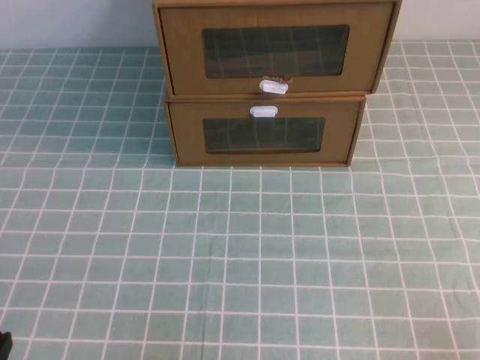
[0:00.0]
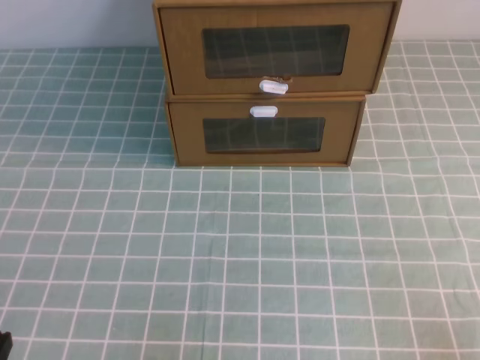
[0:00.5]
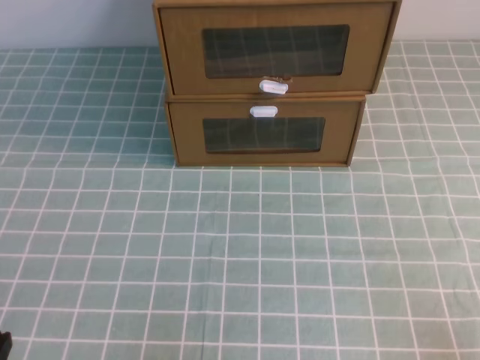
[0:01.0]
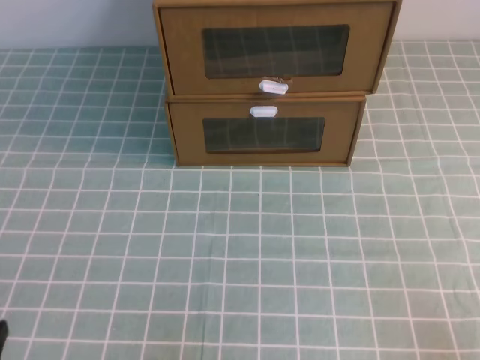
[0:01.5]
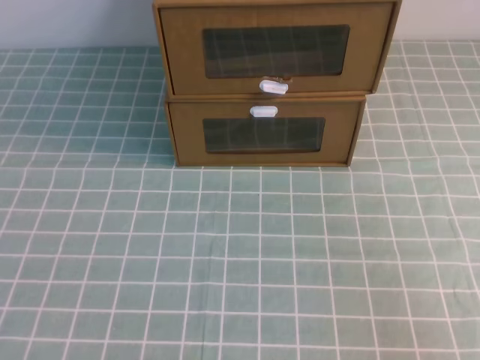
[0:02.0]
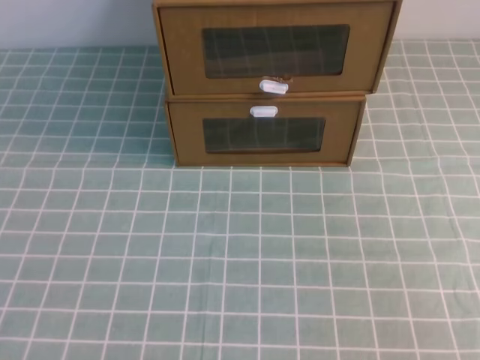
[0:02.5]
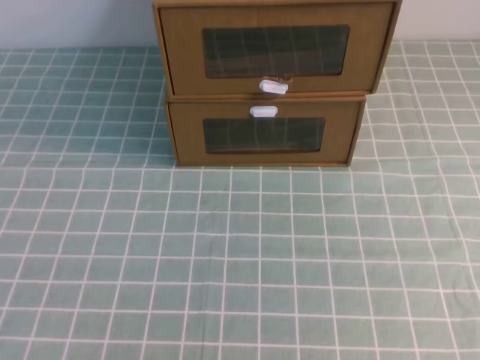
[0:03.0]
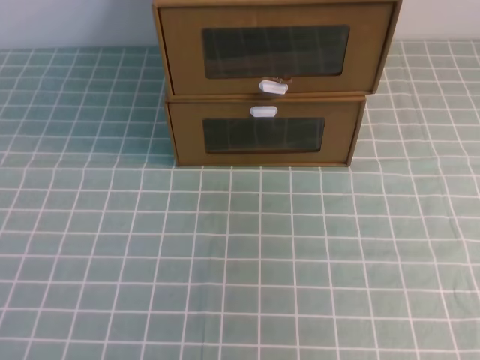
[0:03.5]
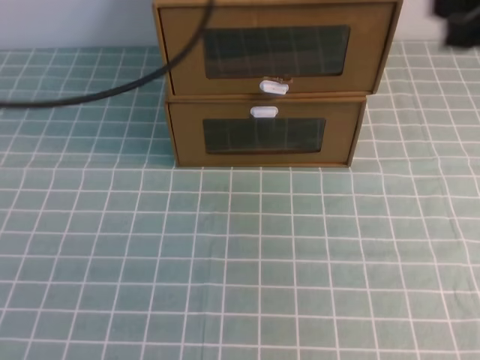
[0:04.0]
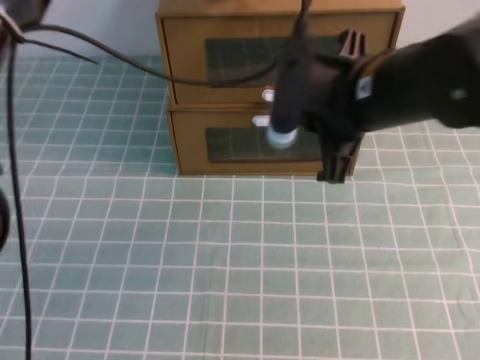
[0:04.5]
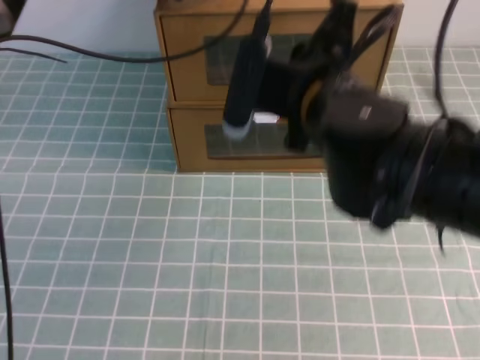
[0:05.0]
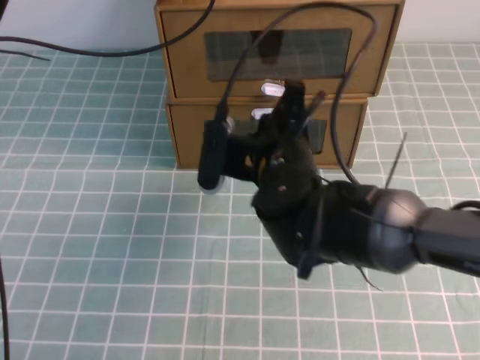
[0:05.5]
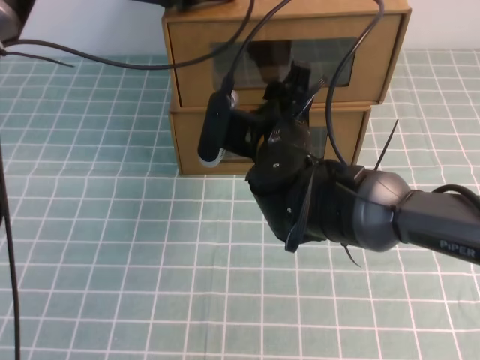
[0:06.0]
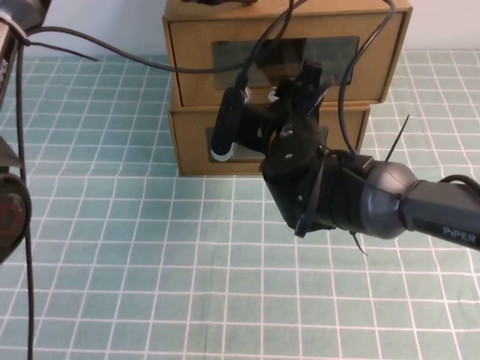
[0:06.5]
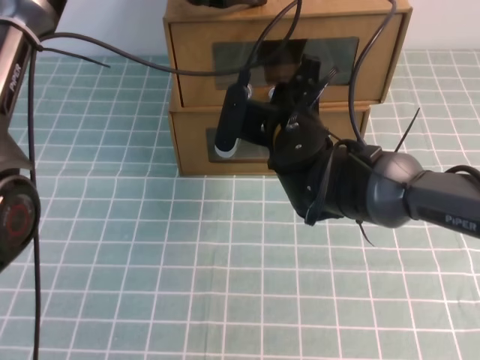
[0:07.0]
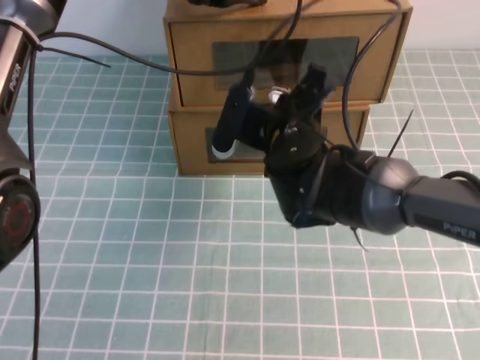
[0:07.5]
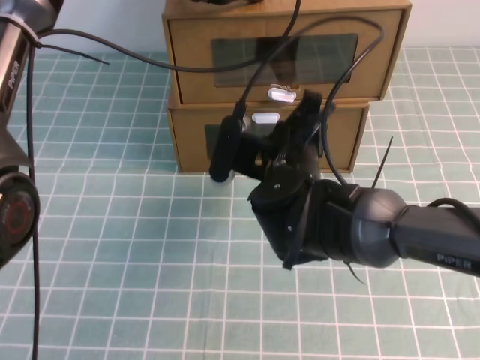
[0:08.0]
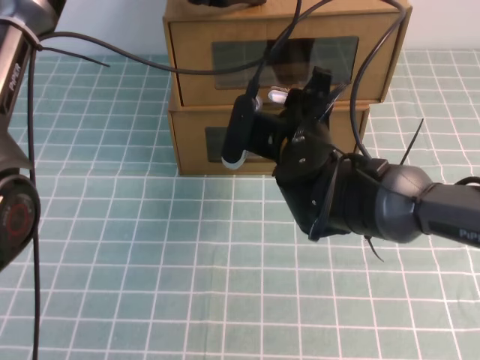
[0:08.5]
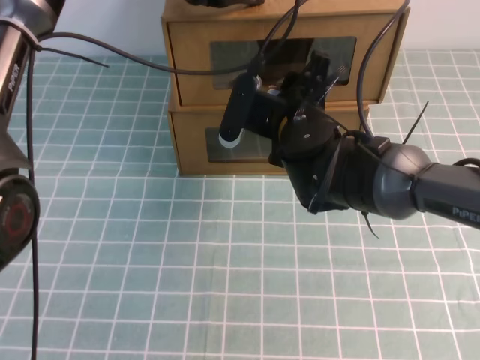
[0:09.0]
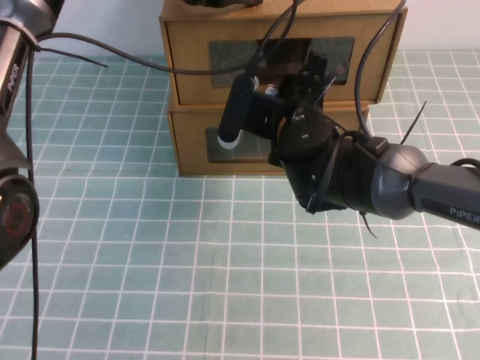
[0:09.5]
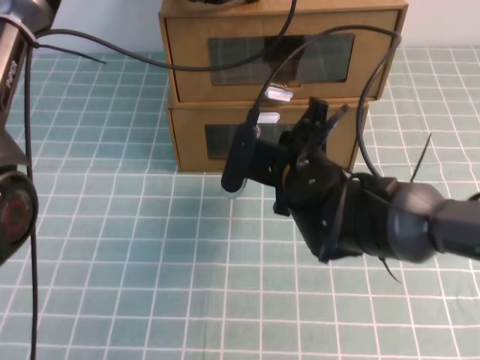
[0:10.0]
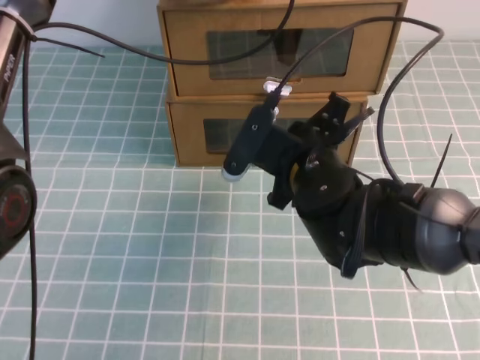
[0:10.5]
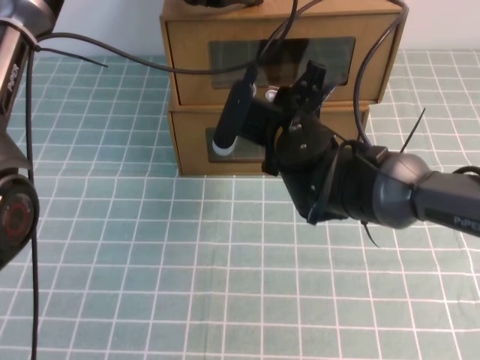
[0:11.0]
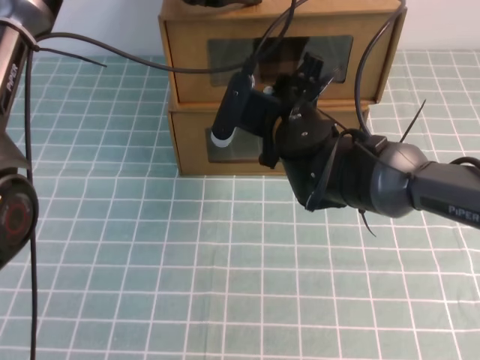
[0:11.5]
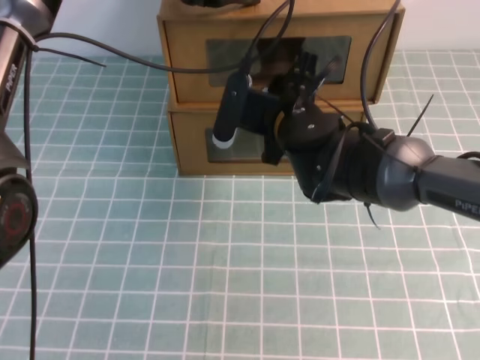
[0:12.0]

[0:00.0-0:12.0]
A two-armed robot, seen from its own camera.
Task of the whole recording: open the shoebox on the cyan tablecloth.
2.0 to 4.0 s: The two grippers go about 30 cm forward and upward.
4.0 to 6.0 s: The right gripper shifts approximately 25 cm to the left and downward, and opens up. The left gripper moves forward and downward, some 20 cm.
6.0 to 8.0 s: The right gripper closes up.
8.0 to 10.0 s: The right gripper opens and closes again.
10.0 to 12.0 s: The right gripper moves about 5 cm, and opens.

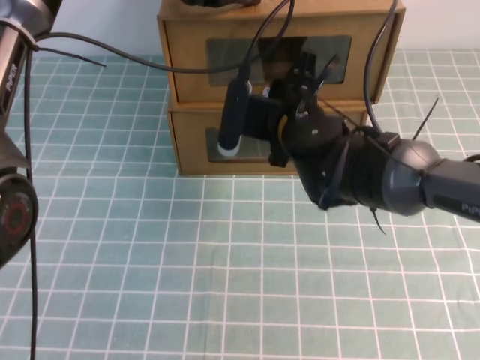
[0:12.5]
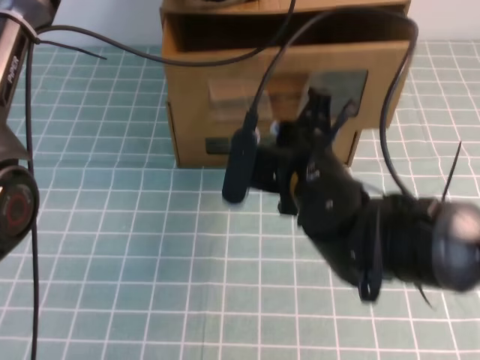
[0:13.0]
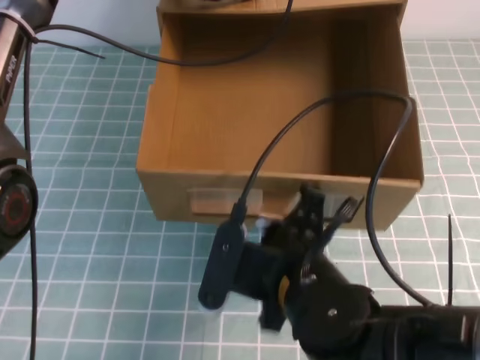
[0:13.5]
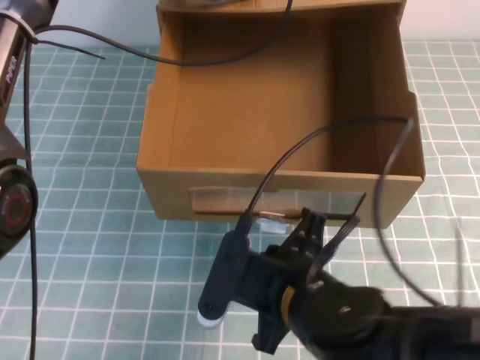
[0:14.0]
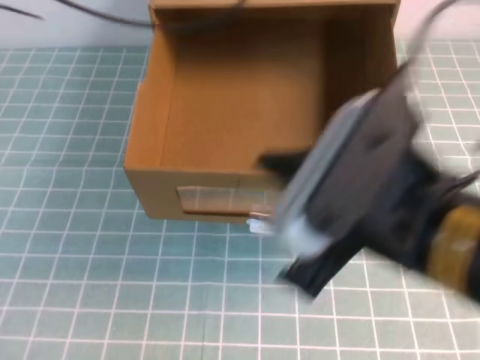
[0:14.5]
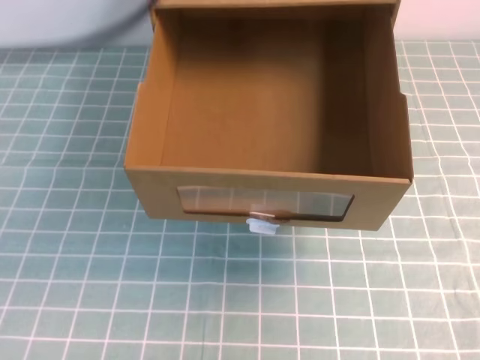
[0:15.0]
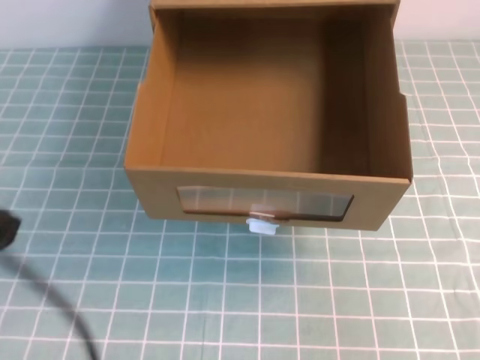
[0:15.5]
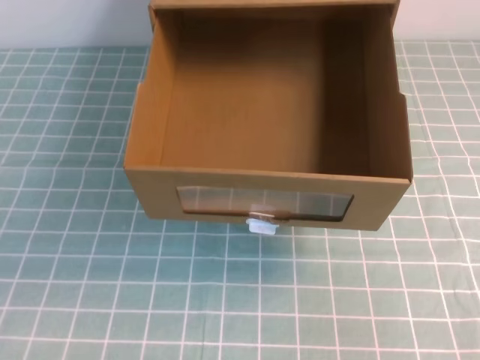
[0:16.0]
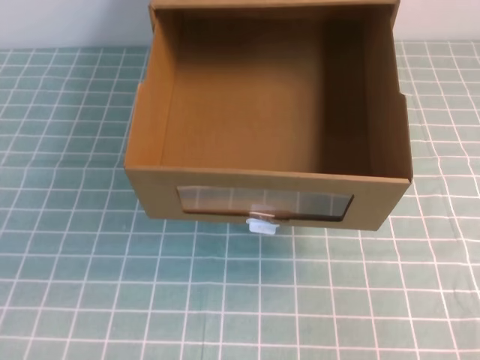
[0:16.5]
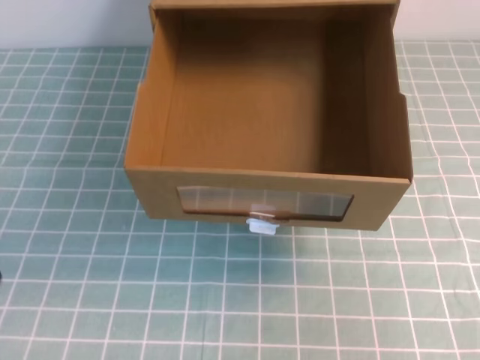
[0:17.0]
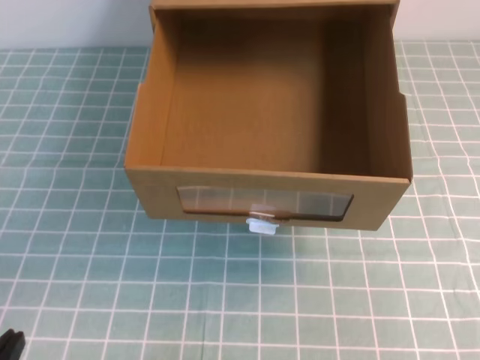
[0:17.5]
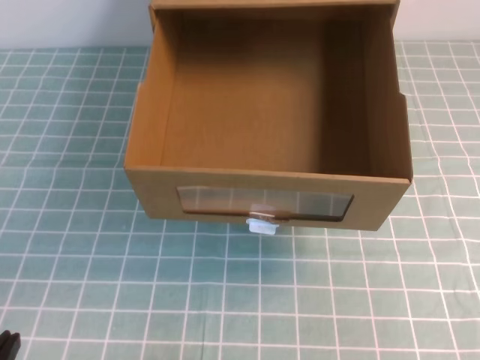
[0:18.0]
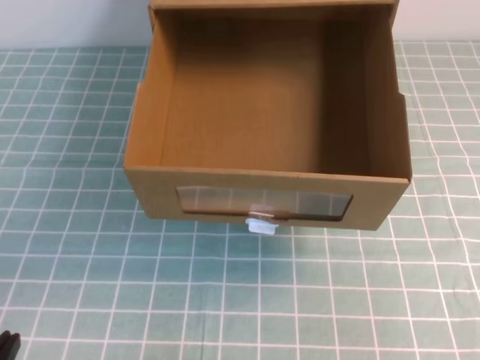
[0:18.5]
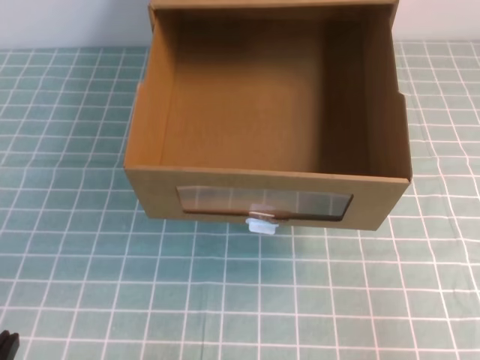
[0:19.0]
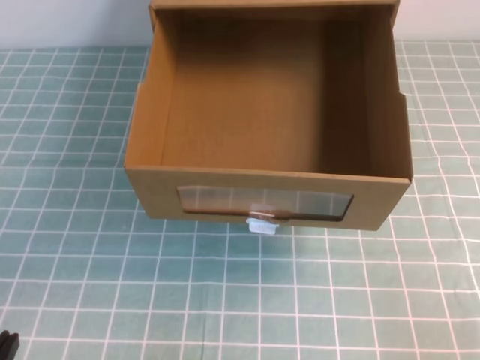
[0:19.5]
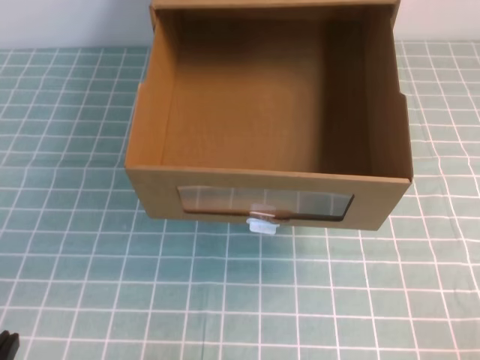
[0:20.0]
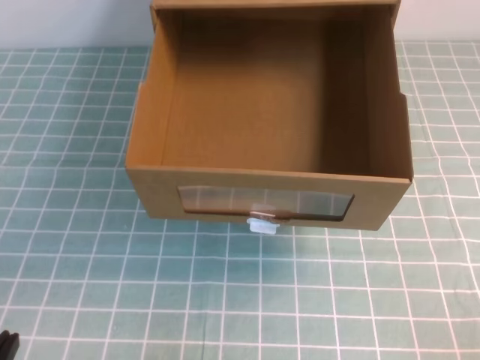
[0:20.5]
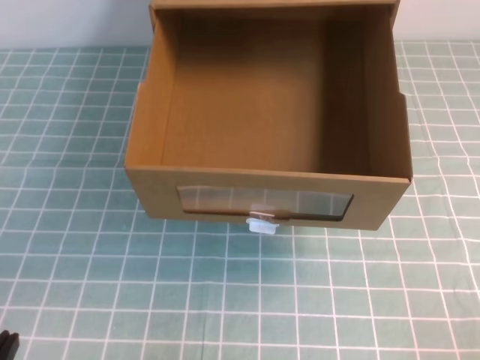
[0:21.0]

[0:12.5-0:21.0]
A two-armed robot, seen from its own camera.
Task of the whole recording: open the shoebox on the cyan tablecloth.
Step, 12.5 to 21.0 s: Open the shoe box.
12.5 to 14.5 s: The right gripper heads backward and upward, covering roughly 25 cm. The left gripper heads upward and backward, covering roughly 10 cm.
14.5 to 16.5 s: The right gripper travels to the right by some 20 cm. The left gripper heads backward, covering some 35 cm.
19.0 to 21.0 s: The right gripper shifts about 15 cm downward.

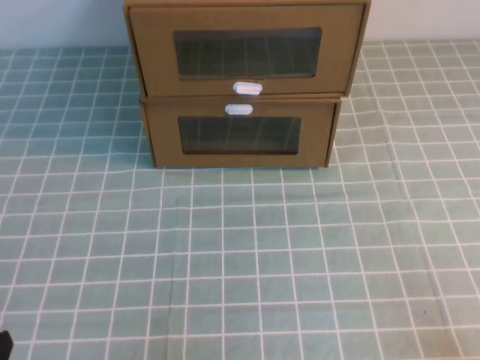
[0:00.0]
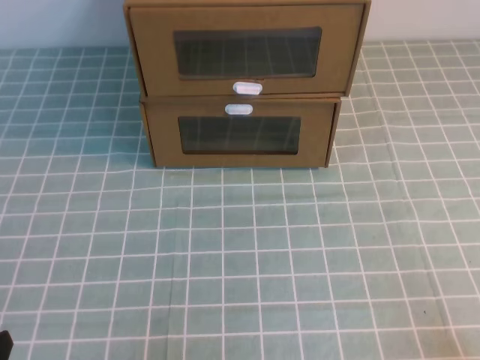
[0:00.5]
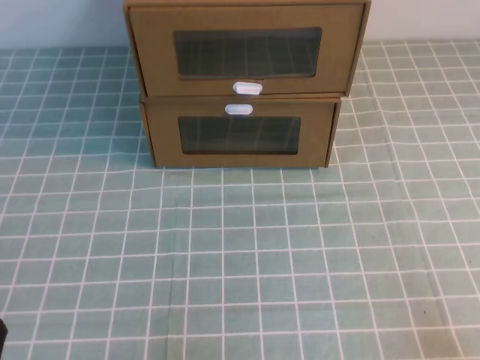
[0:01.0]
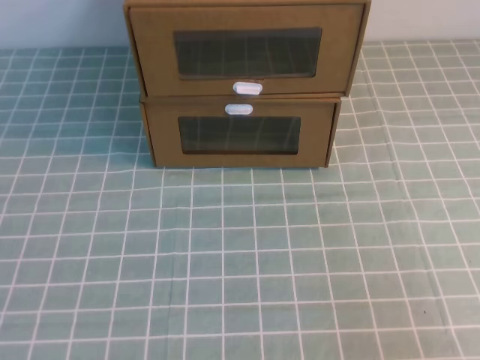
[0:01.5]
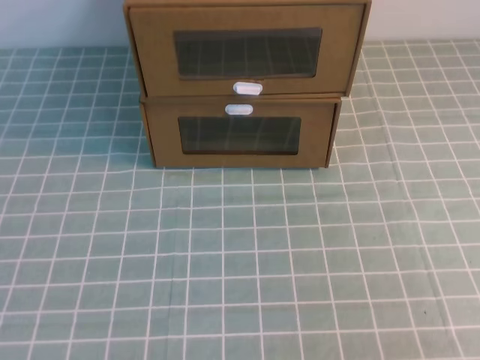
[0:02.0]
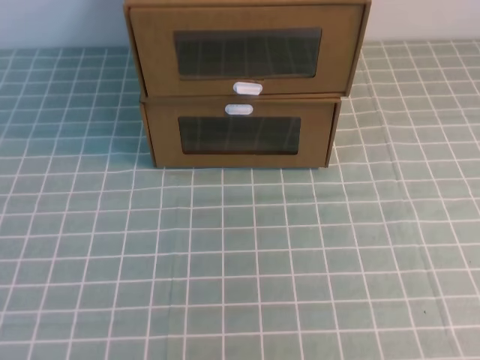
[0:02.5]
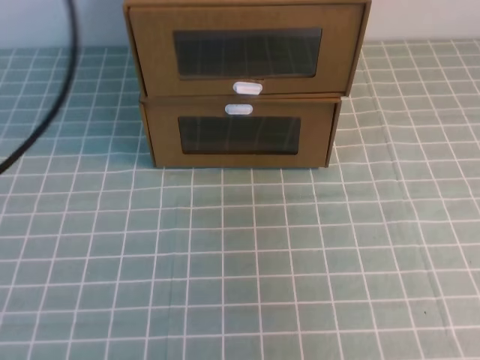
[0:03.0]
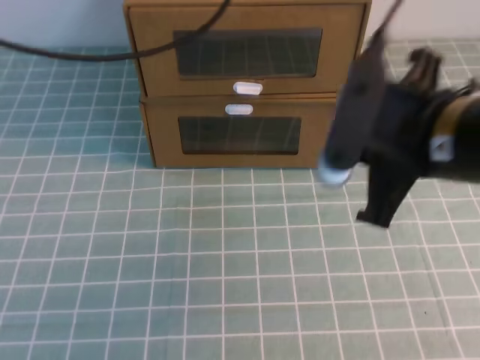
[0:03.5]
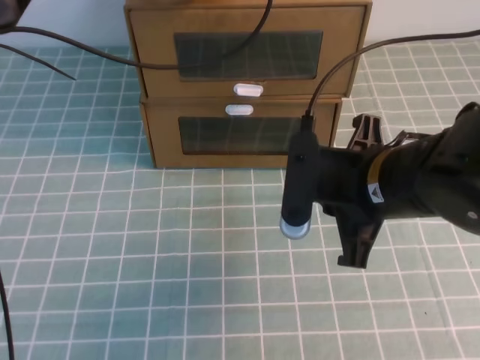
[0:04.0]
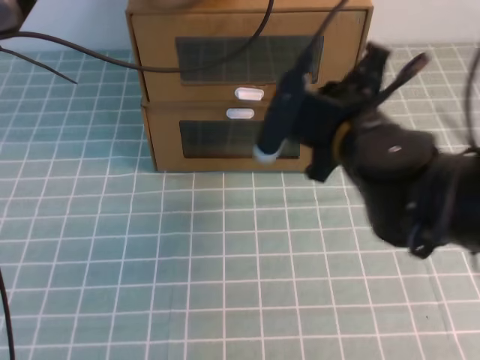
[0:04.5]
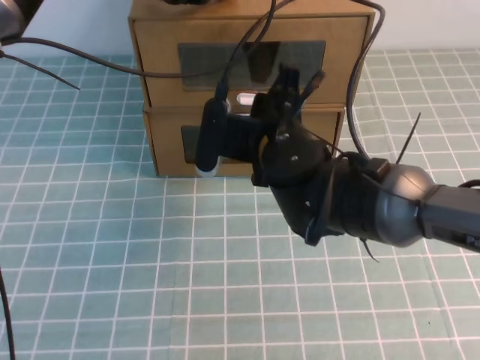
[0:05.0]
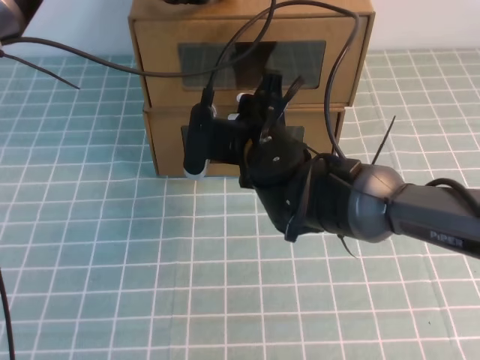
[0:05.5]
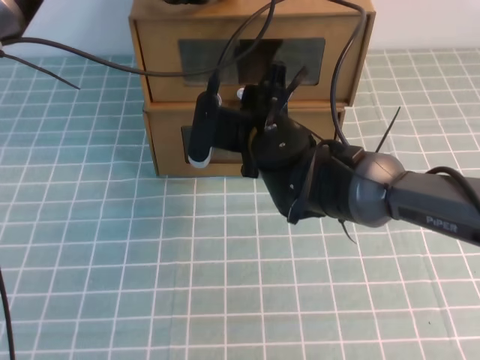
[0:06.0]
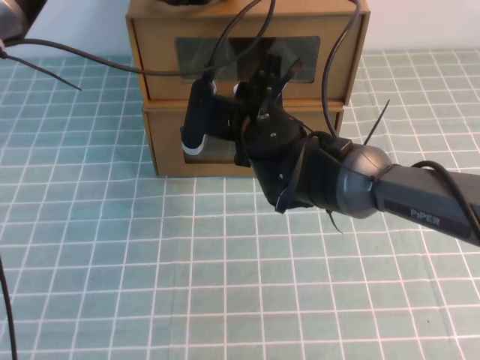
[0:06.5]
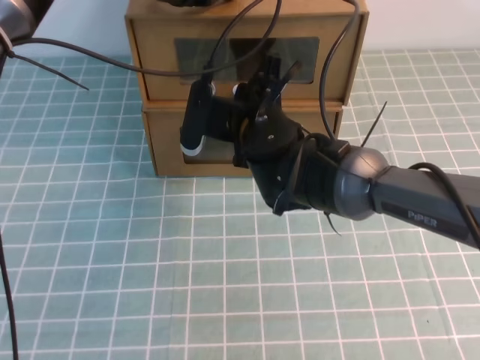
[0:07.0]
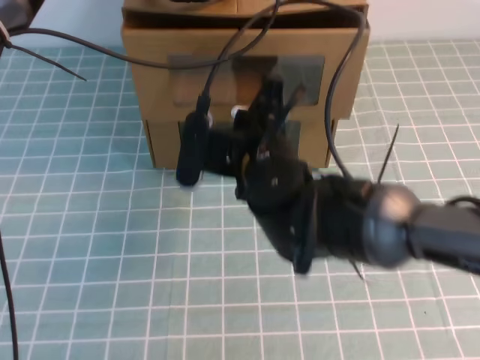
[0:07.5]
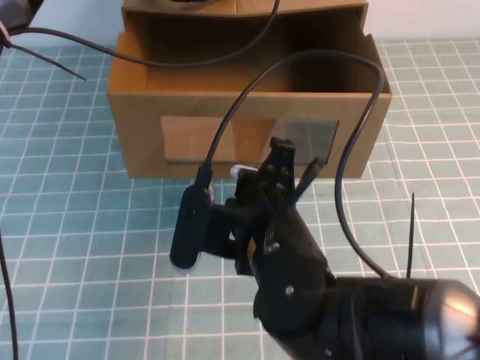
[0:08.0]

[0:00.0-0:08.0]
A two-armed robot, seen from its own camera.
Task of the whole recording: open the shoebox on the cyan tablecloth.
2.0 to 4.0 s: The left gripper shifts approximately 50 cm forward and to the right. The right gripper goes roughly 30 cm forward and to the left.
4.0 to 6.0 s: The right gripper shifts some 15 cm forward and to the left, and opens up.
6.0 to 8.0 s: The right gripper travels backward by some 15 cm, and closes up.
